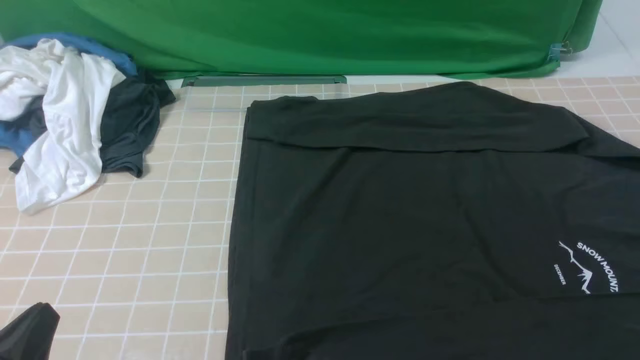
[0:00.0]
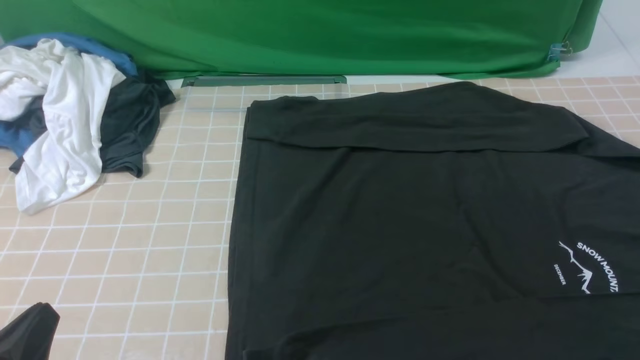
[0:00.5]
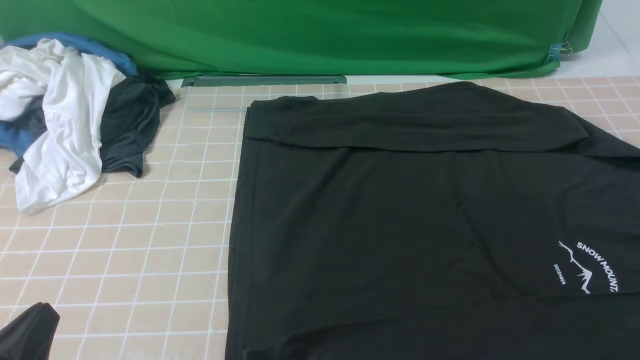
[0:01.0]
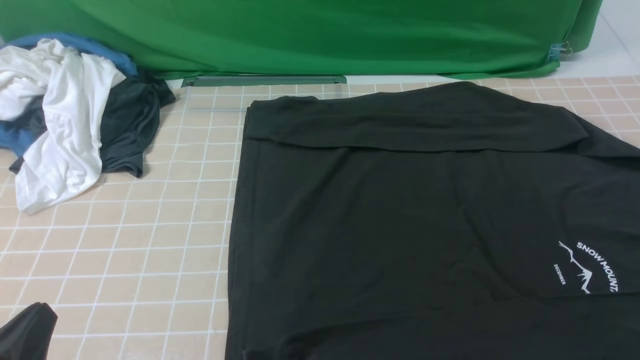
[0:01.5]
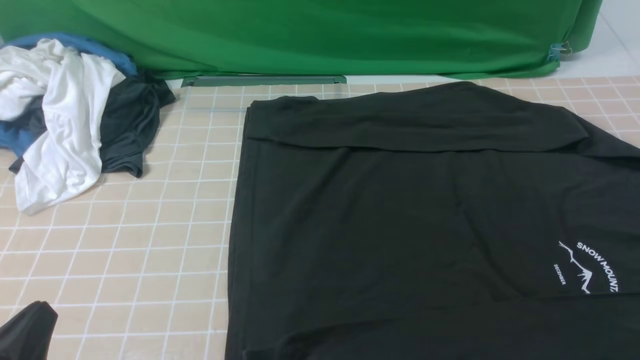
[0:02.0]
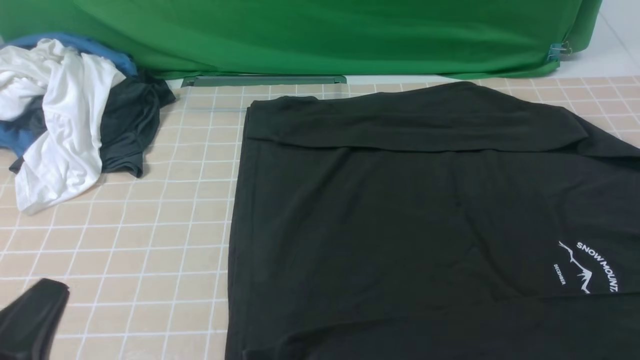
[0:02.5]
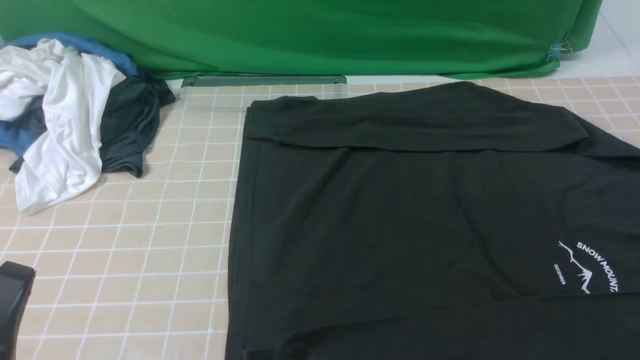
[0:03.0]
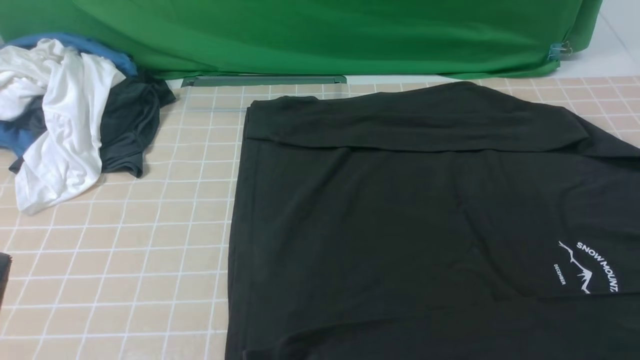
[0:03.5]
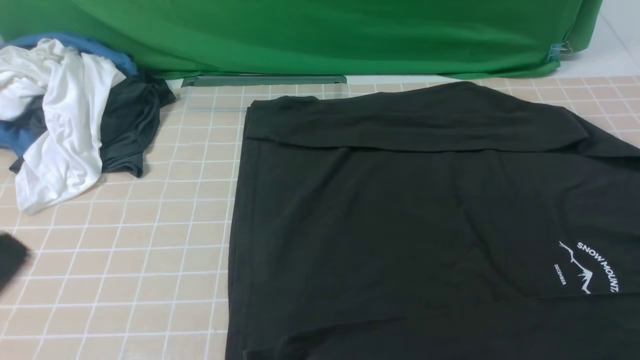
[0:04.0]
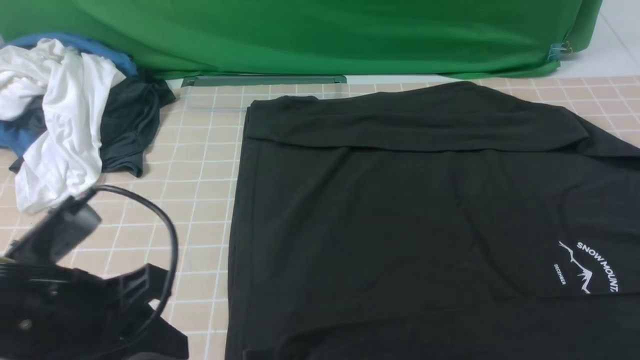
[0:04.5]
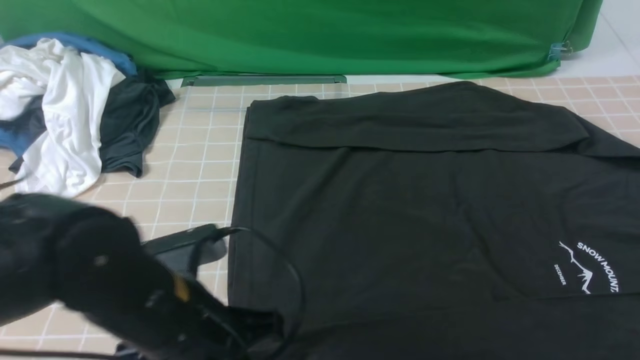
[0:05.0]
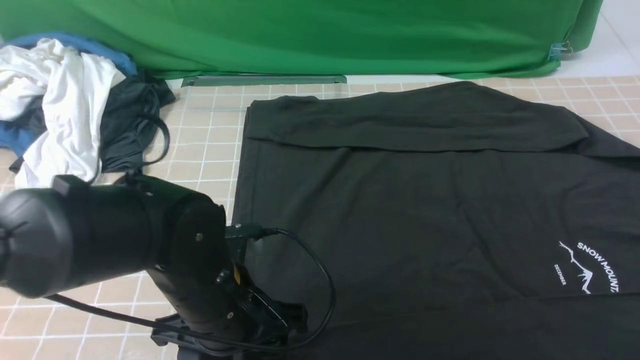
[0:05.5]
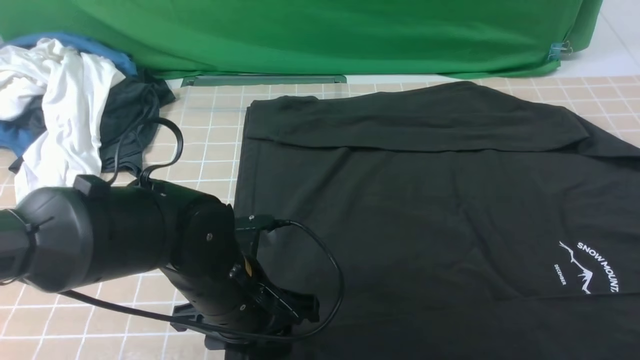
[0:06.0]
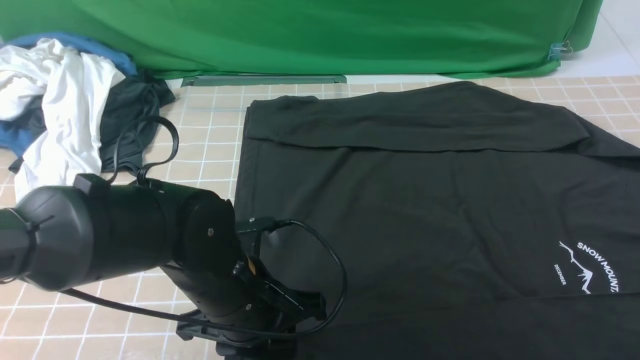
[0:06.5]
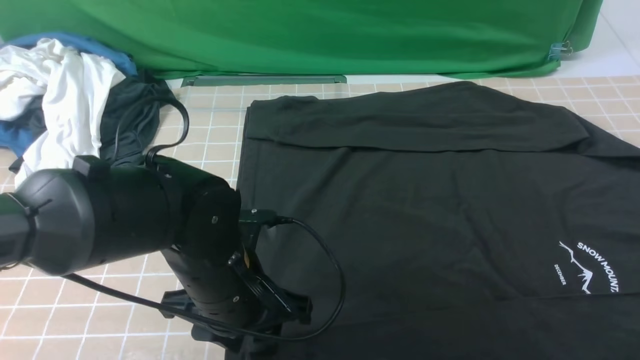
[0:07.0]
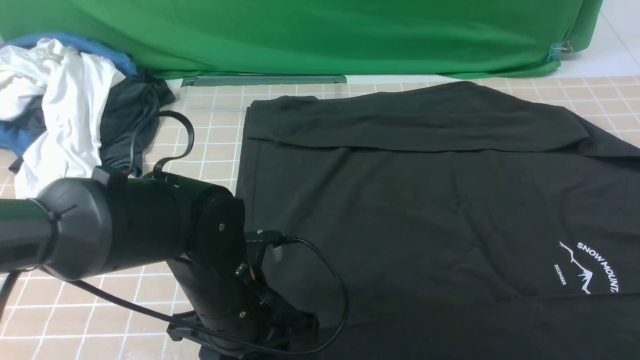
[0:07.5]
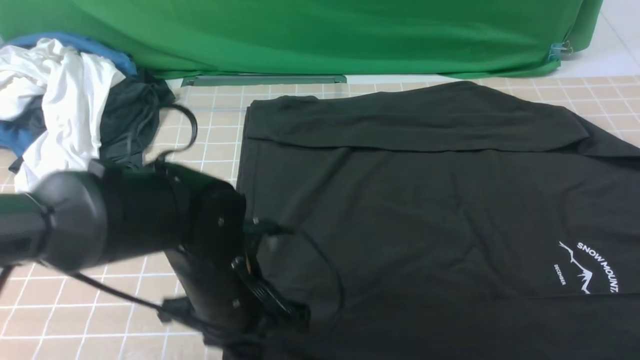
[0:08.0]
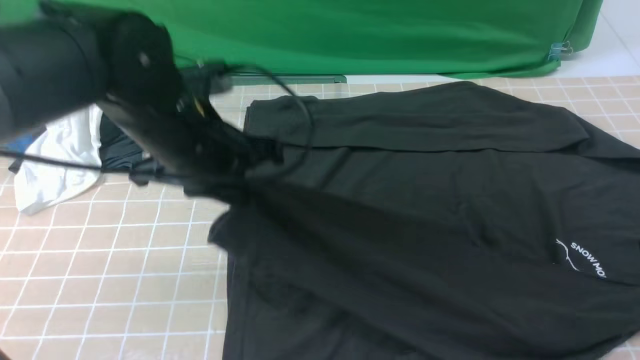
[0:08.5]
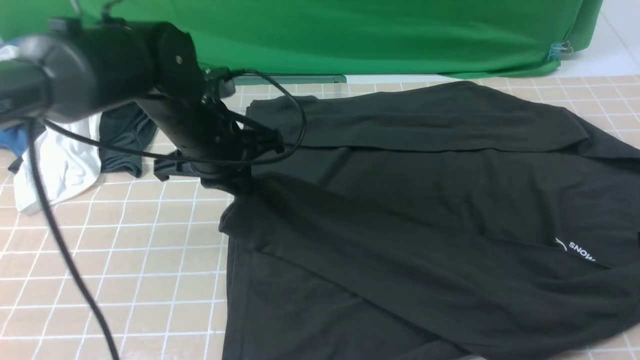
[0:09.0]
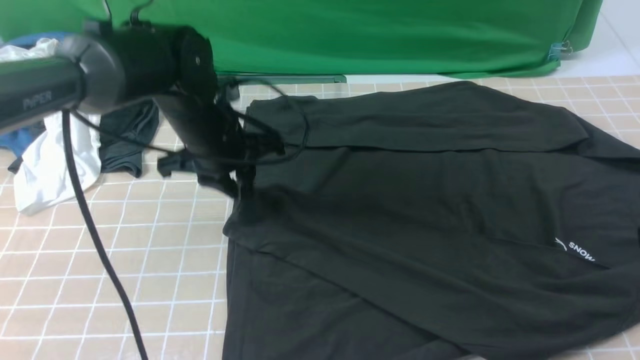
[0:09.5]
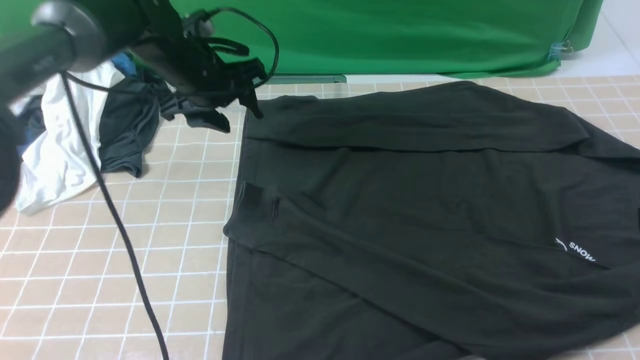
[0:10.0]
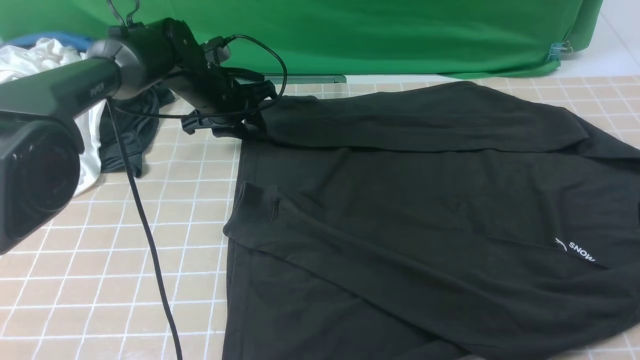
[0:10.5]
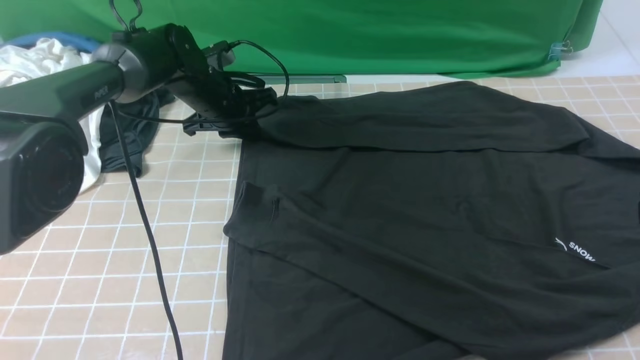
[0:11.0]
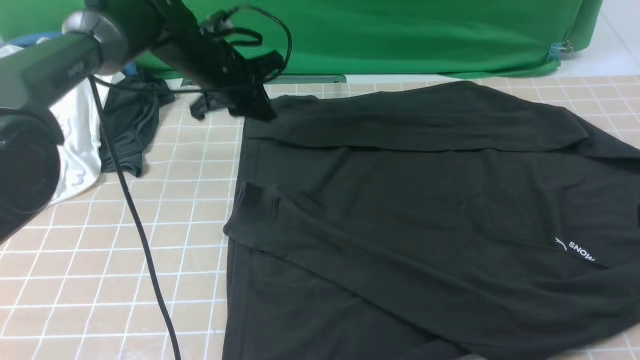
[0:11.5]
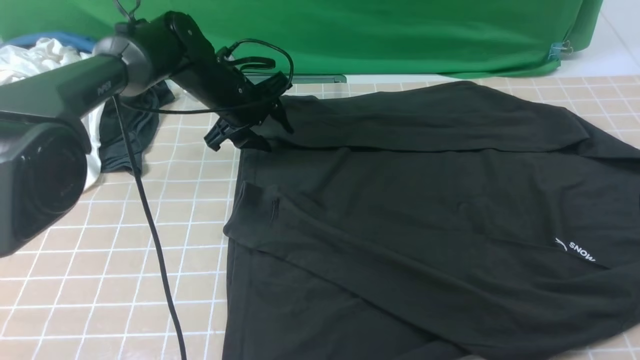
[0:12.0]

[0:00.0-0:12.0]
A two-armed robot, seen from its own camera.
Step, 0:00.0 to 0:07.5: use the left arm to clamp the cuff closest to it.
Step, 0:08.0 to 0:09.5: use the left arm to drag and place the cuff at the centered position on the left edge of the fabric.
0:02.0 to 0:04.0: The left gripper moves upward, approximately 15 cm.
0:04.0 to 0:06.0: The right gripper heads upward and forward, covering approximately 10 cm. Meanwhile the left gripper travels forward, downward and to the right by roughly 25 cm, and opens its fingers.
0:06.0 to 0:08.0: The left gripper closes its fingers.
0:08.0 to 0:10.0: The left gripper is displaced forward by roughly 25 cm, and opens up.
0:10.0 to 0:12.0: The left gripper ends up roughly 5 cm from where it was, and closes, then reopens.

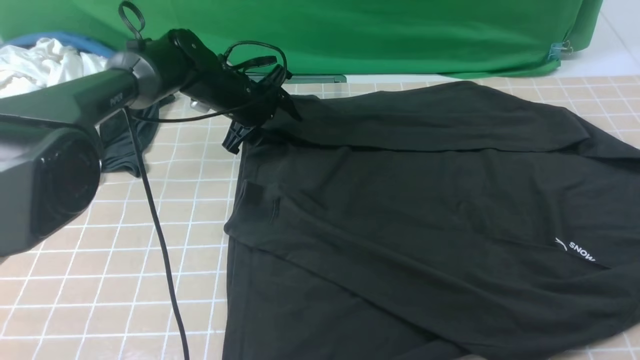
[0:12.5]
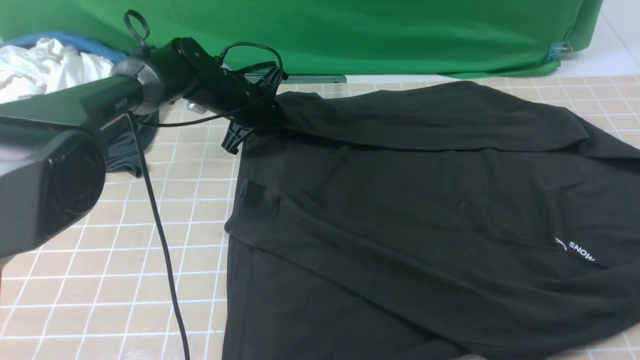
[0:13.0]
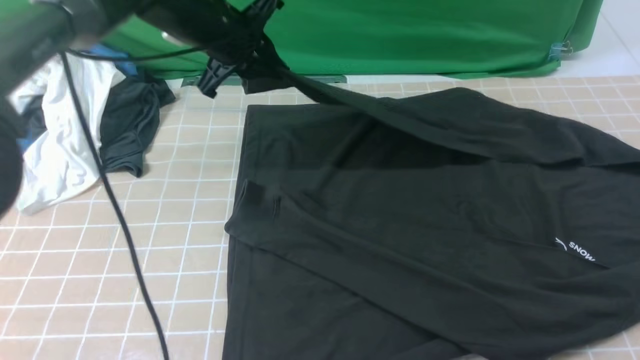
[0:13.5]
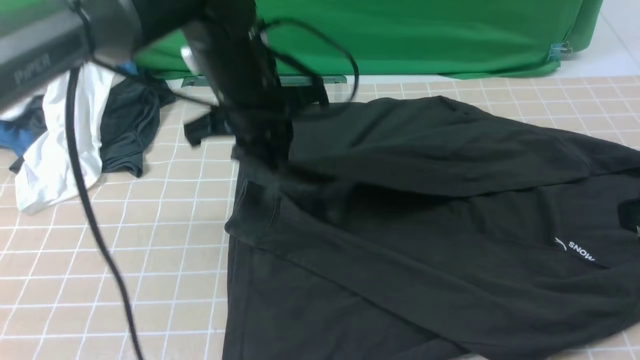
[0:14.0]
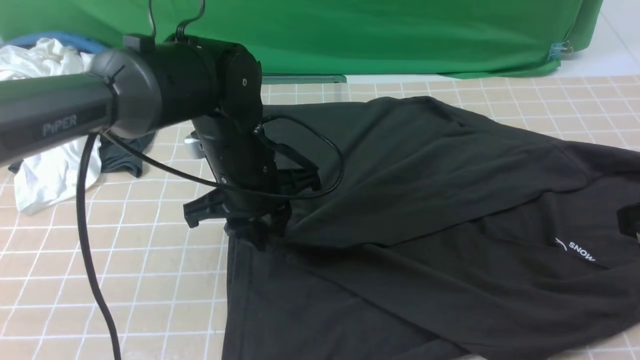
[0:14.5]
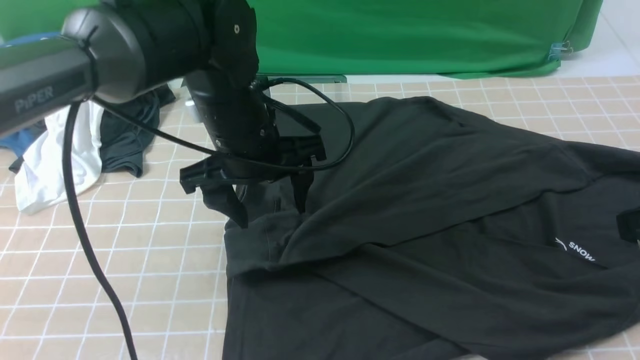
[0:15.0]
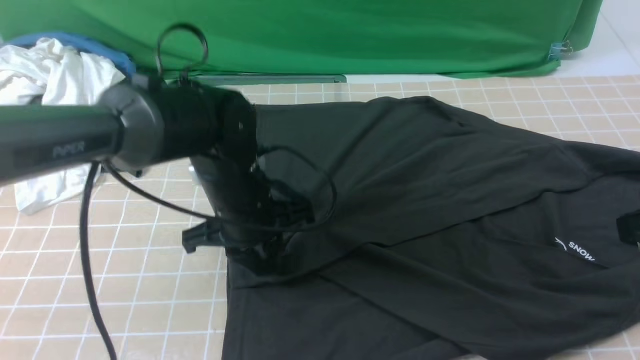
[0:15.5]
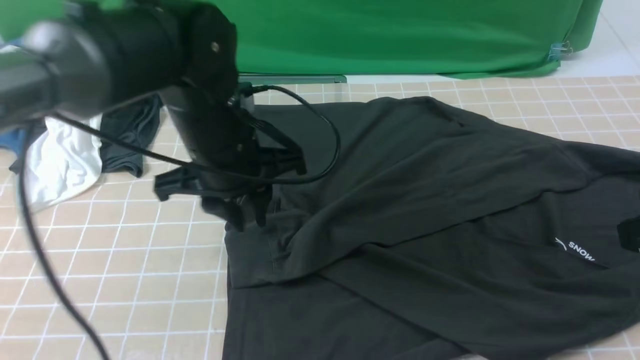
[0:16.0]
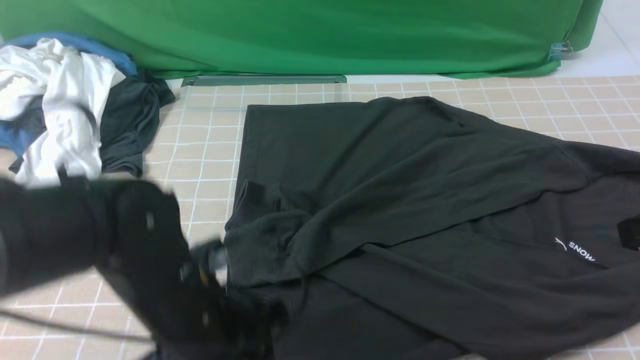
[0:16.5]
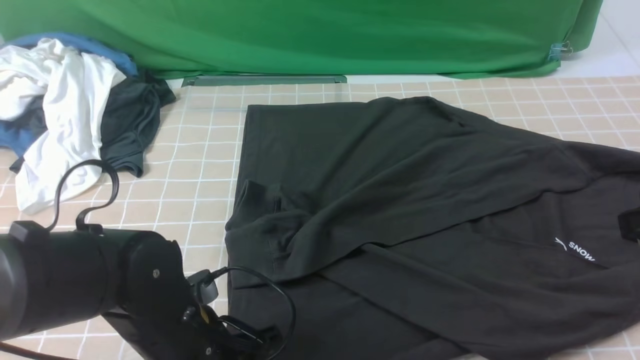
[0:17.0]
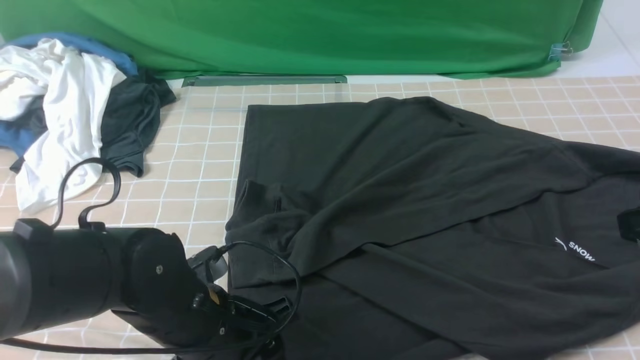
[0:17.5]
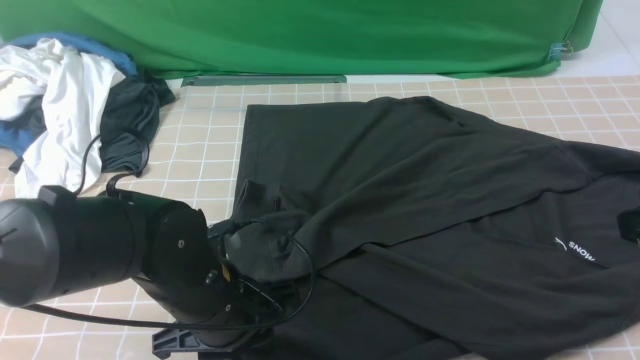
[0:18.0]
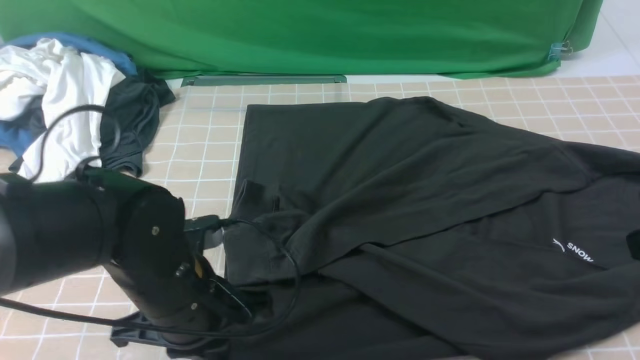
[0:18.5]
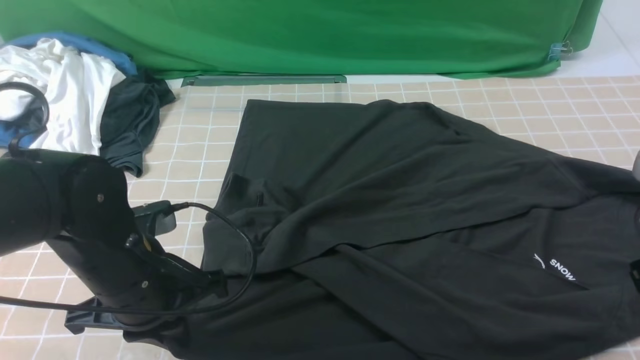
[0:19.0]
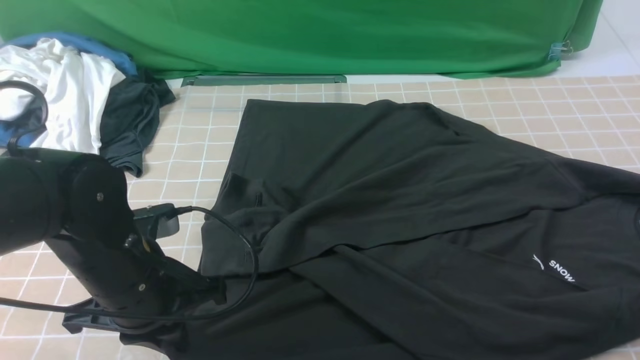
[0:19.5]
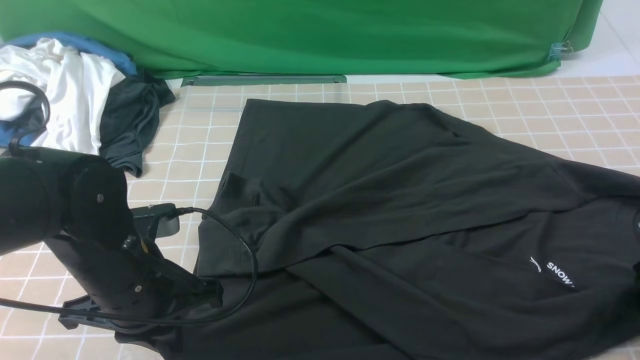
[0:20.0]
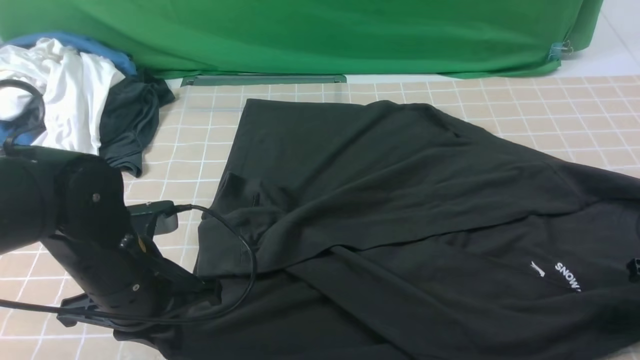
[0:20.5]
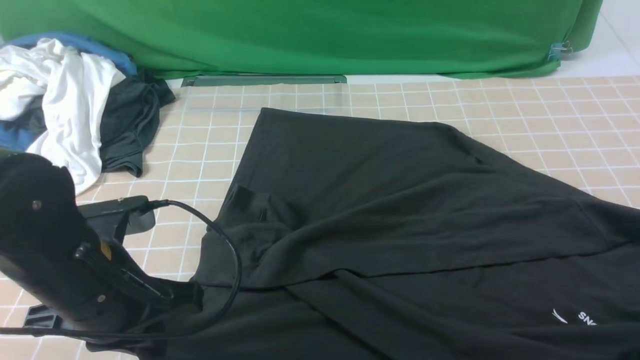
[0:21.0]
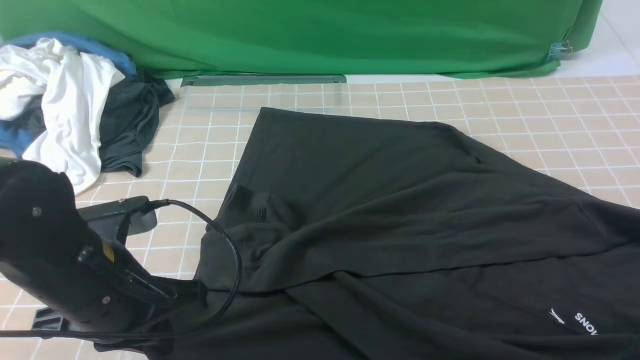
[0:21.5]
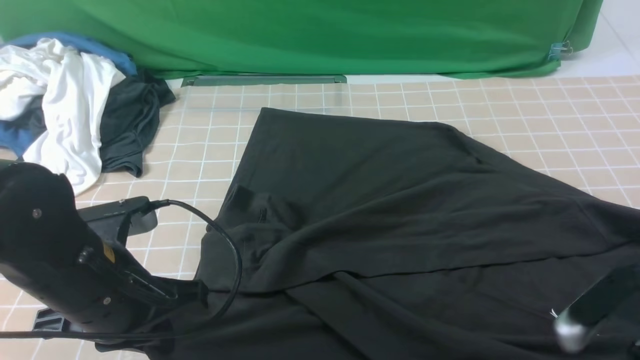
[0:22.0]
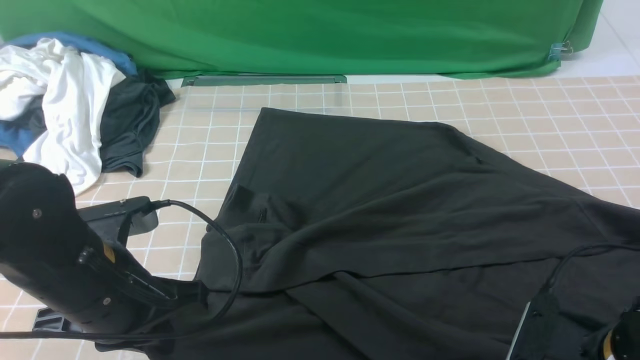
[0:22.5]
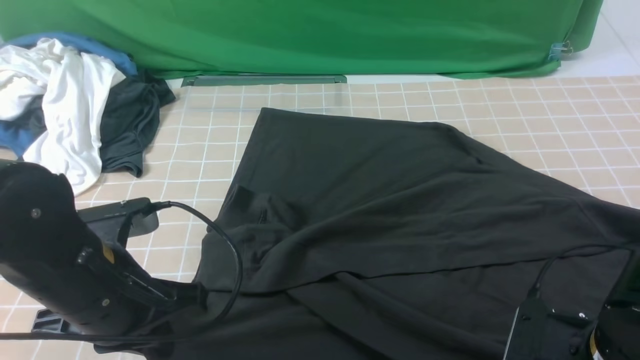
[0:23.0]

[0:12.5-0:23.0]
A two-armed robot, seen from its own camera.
Step, 0:13.0 to 0:14.5: use the left arm to drag and drop the cuff onto the cuff closest to the left arm.
Step, 0:15.0 to 0:20.0: use both arms simultaneously to clamp the lower edge of the clothing fabric.
0:12.5 to 0:14.5: The right gripper closes, while the left gripper moves backward, about 20 cm, and closes and opens again.
0:14.5 to 0:16.5: The left gripper is displaced backward by some 15 cm, and opens.
0:16.5 to 0:19.0: The right gripper shifts by roughly 5 cm, and opens its fingers, while the left gripper heads to the left, covering some 5 cm, and closes.
0:19.0 to 0:21.0: The right gripper is displaced downward and to the right by about 10 cm, and closes up.
0:21.0 to 0:23.0: The right gripper goes some 15 cm to the left, and opens and closes again.
